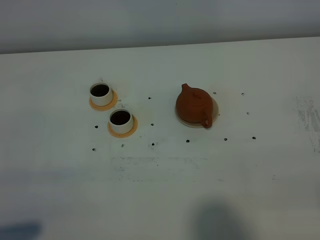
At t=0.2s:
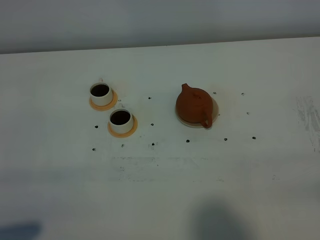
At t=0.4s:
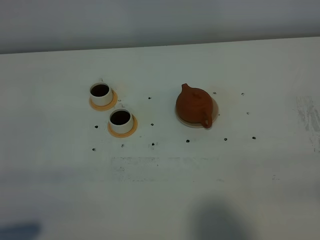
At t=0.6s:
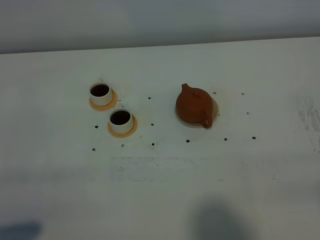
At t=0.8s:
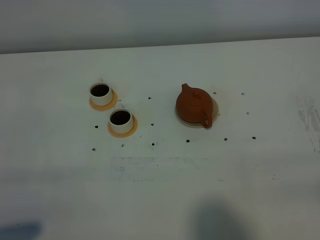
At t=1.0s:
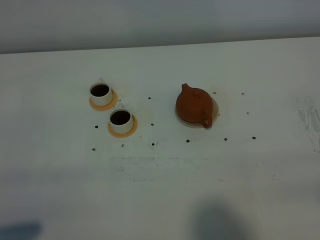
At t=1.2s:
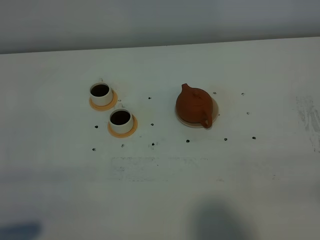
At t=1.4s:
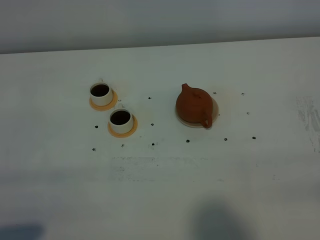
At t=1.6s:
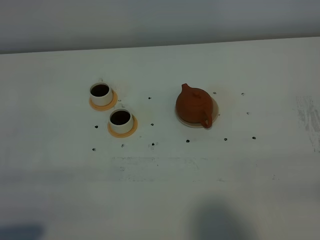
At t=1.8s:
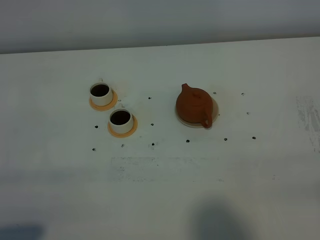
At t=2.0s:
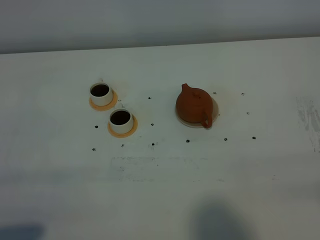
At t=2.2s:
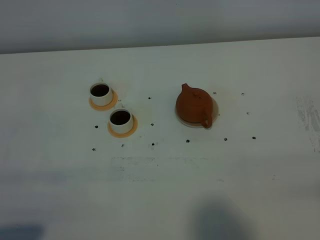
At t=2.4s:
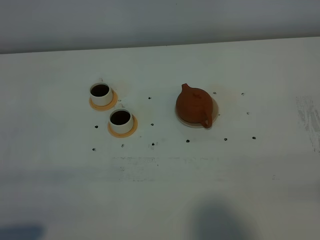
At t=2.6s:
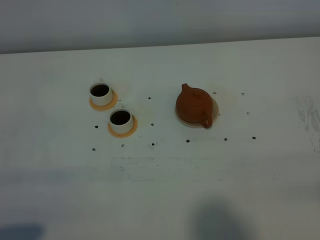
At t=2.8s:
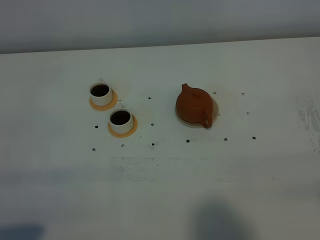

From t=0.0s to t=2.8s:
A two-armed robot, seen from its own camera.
Task of the whole recording: grasp the brown teapot and pour the tea into the two white teacups one by one, put the brown teapot back in its original place.
From t=1.4s to t=2.8s: Both grippers stay about where they are.
